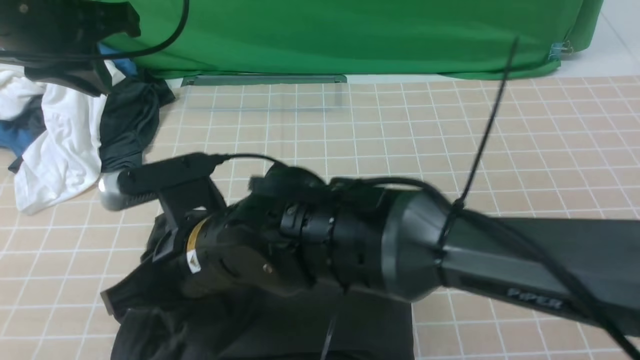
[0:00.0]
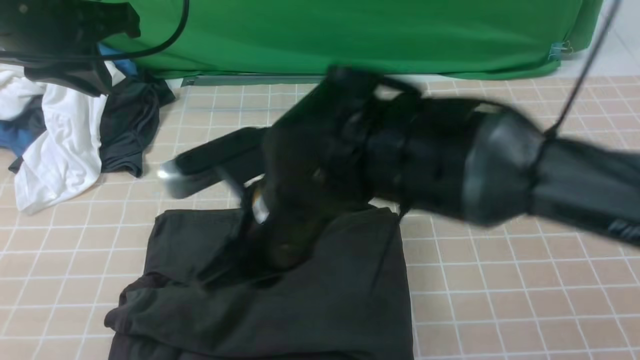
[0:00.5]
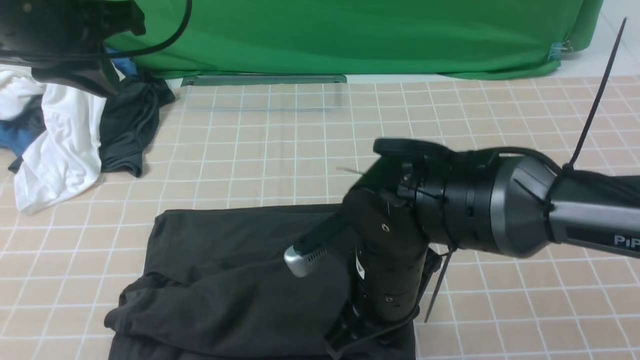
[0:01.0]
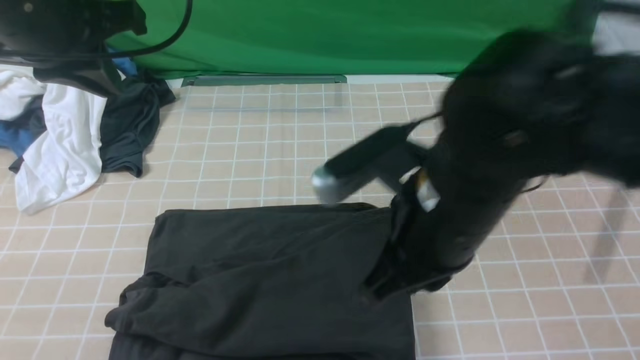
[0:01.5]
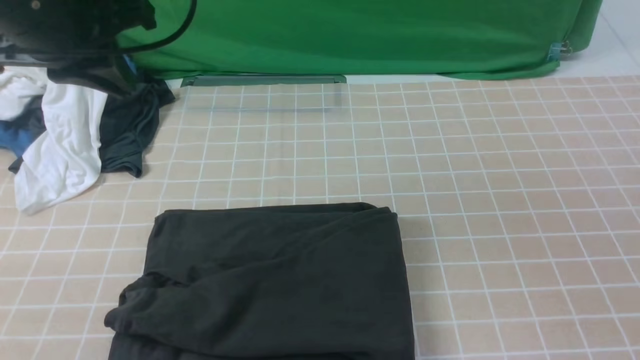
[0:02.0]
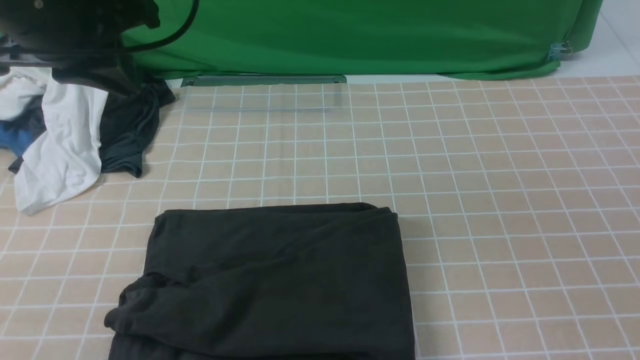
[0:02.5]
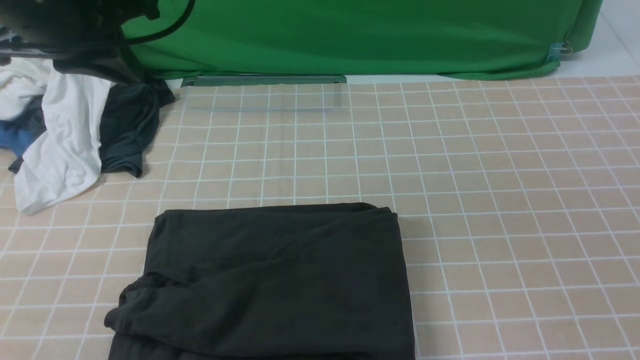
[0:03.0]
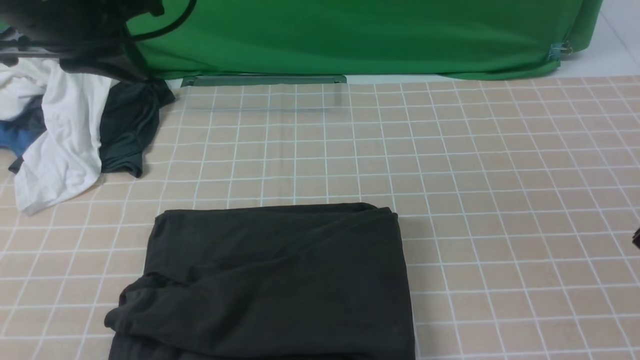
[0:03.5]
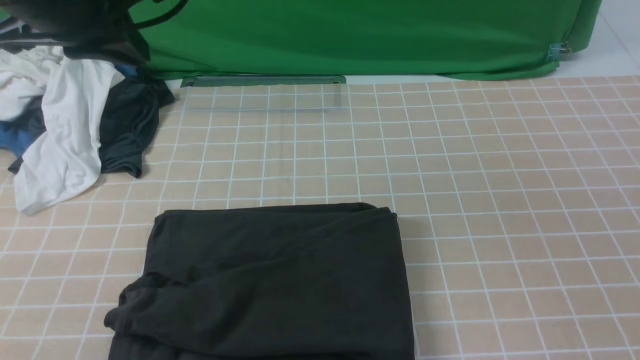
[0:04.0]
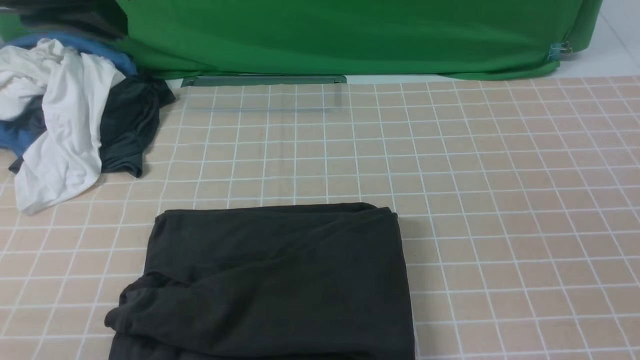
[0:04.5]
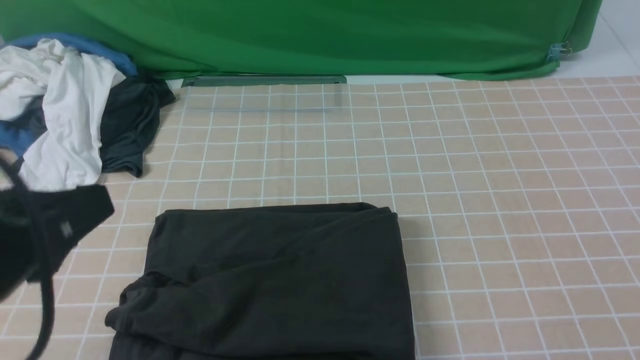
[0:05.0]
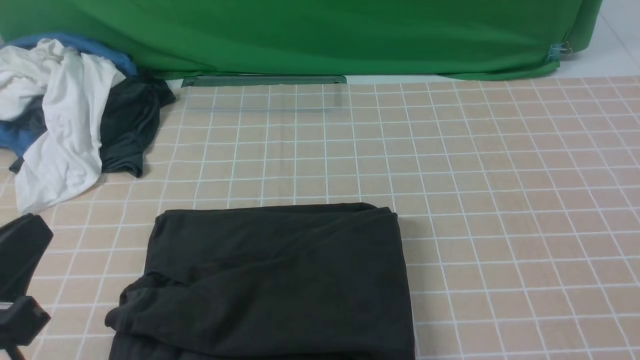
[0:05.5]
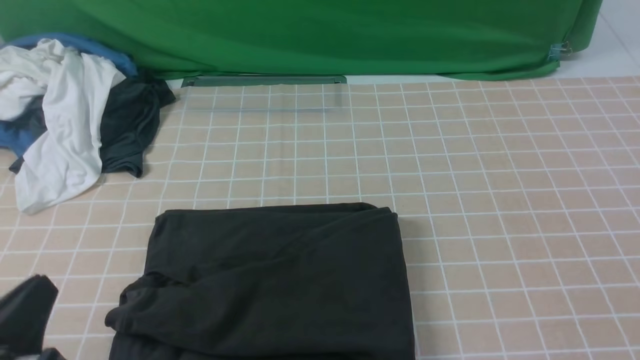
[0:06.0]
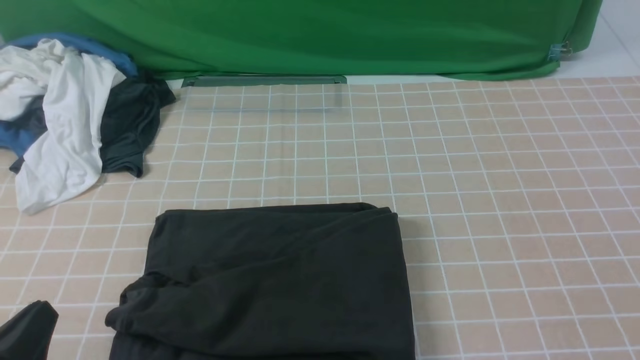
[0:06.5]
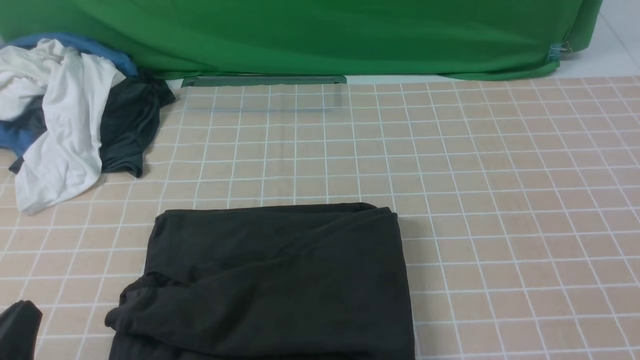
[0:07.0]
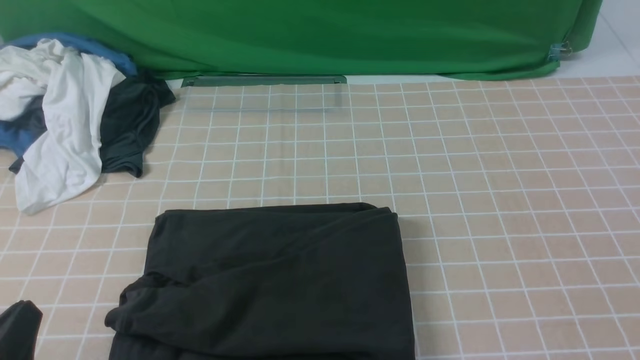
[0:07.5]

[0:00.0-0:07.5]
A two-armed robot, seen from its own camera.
0:00.0 to 0:02.0: The right gripper goes about 40 cm to the right, upward and backward, and closes.
0:04.0 to 0:05.5: The left gripper is displaced backward and downward by roughly 25 cm.
0:05.5 to 0:07.5: The left gripper shifts roughly 10 cm downward.
